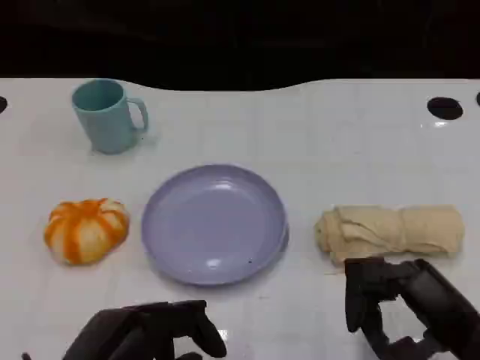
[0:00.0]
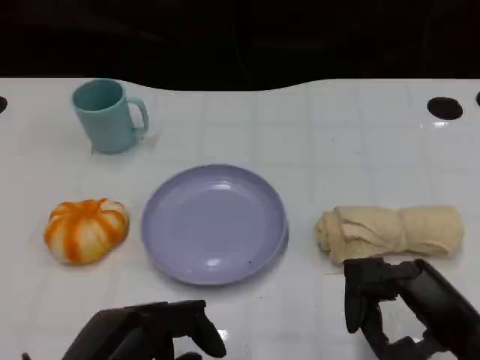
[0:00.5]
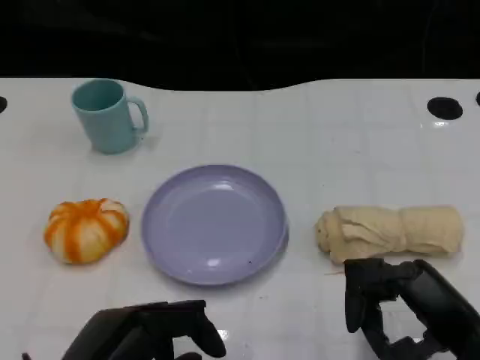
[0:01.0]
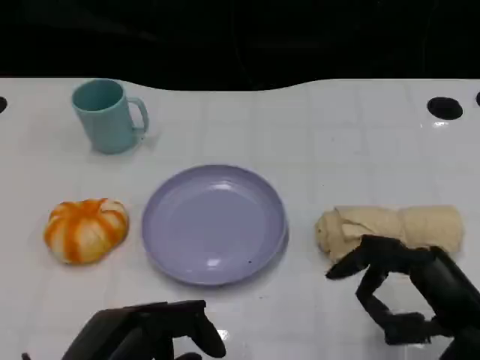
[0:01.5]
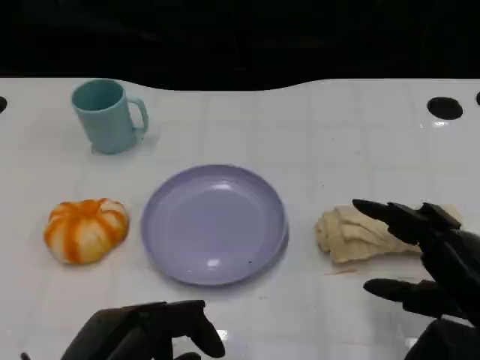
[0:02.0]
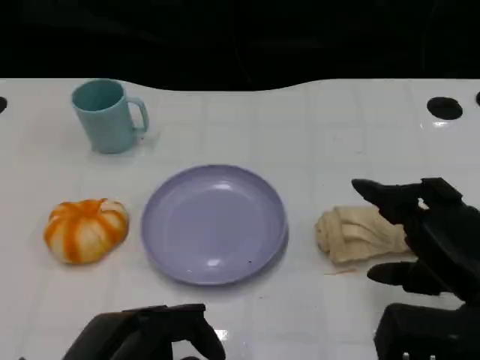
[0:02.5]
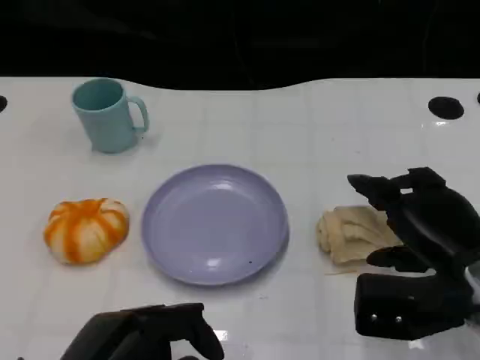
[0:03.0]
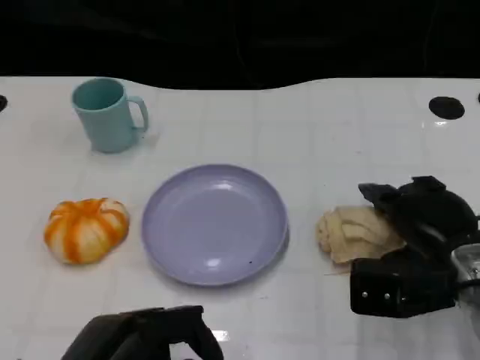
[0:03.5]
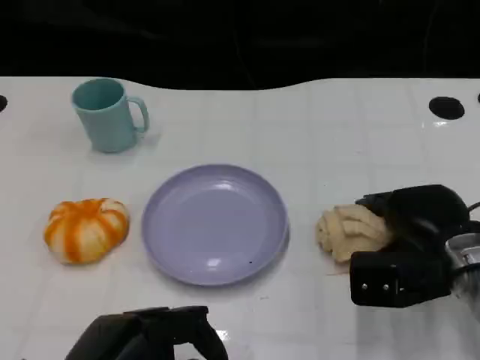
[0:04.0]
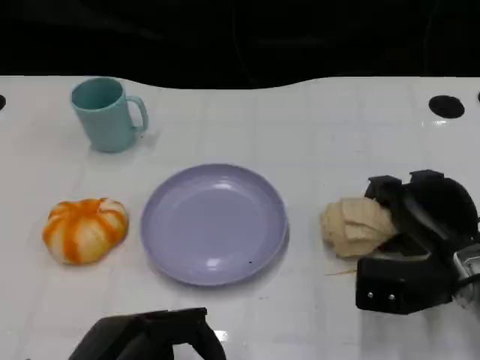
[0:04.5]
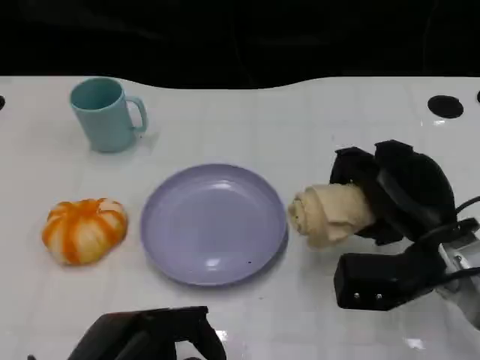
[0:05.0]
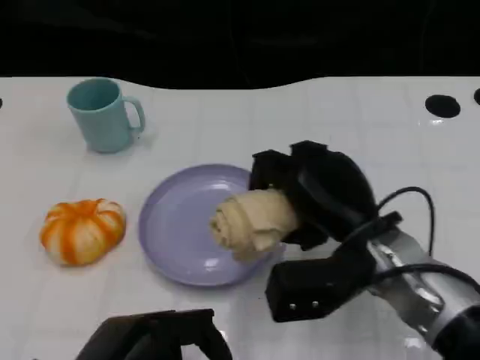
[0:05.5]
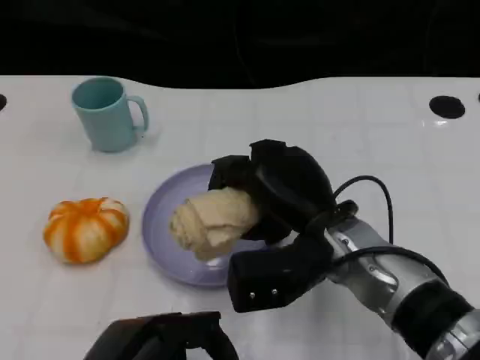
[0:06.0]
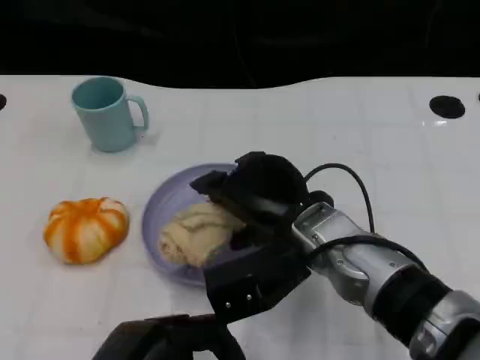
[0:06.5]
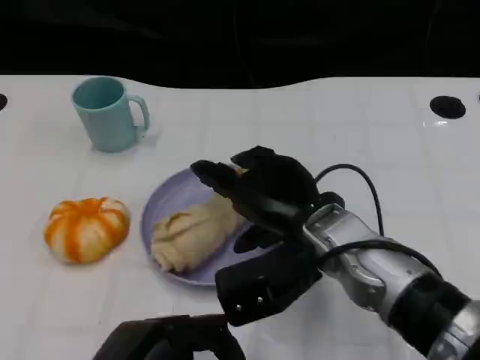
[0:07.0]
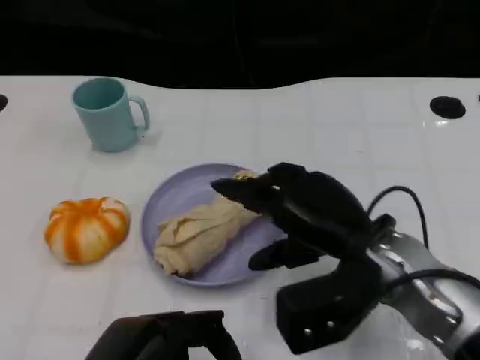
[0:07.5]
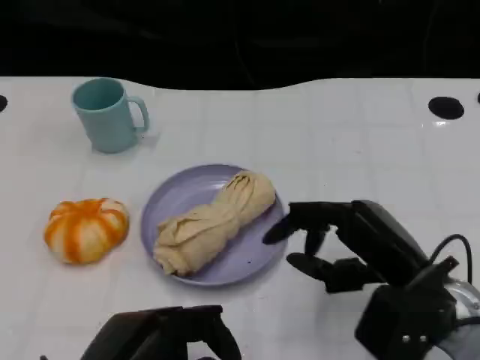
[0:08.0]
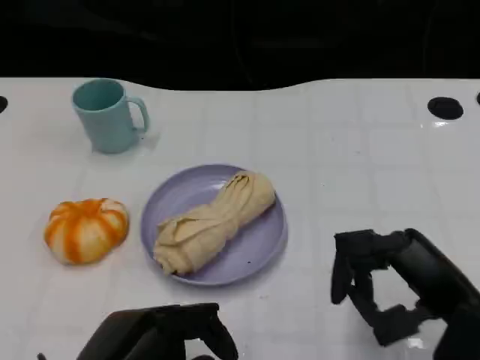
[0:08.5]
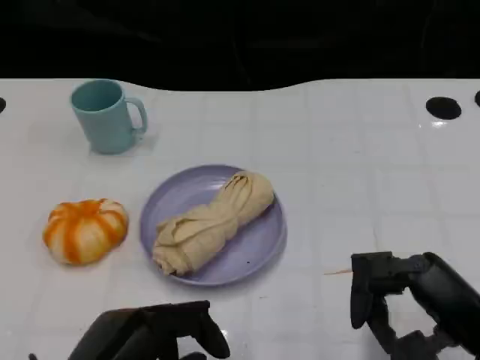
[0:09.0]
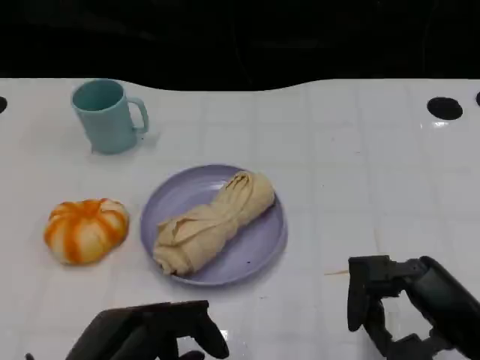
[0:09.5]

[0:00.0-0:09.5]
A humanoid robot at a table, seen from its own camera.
Task of the whole recording: Grasp the towel on the left side of the plate with the left hand and place it into the plate.
0:02.0 to 0:04.0: The right hand heads forward, covering some 10 cm.
0:04.0 to 0:05.5: The right hand goes roughly 10 cm to the left.
0:07.5 to 0:09.5: The right hand shifts approximately 15 cm to the right and backward.

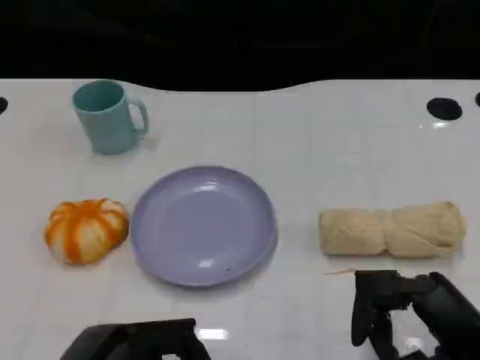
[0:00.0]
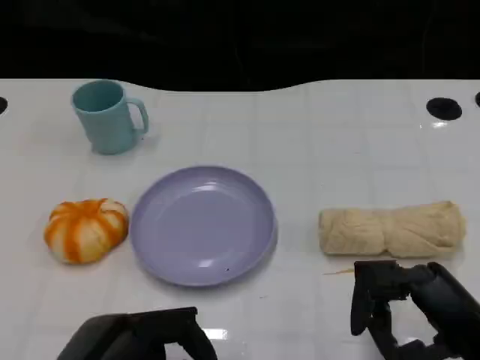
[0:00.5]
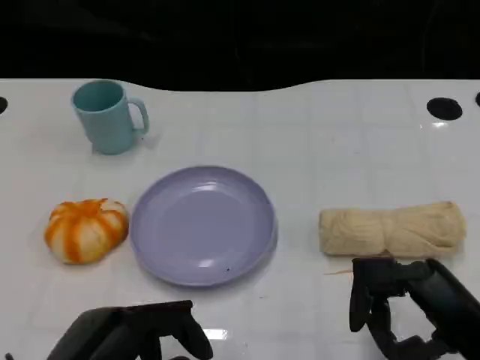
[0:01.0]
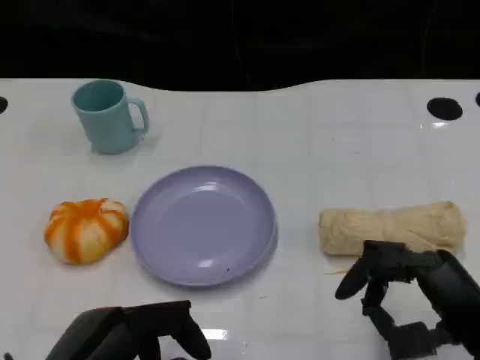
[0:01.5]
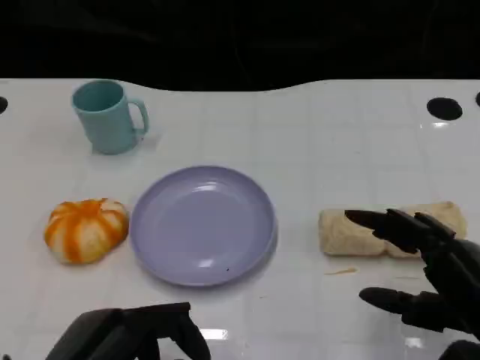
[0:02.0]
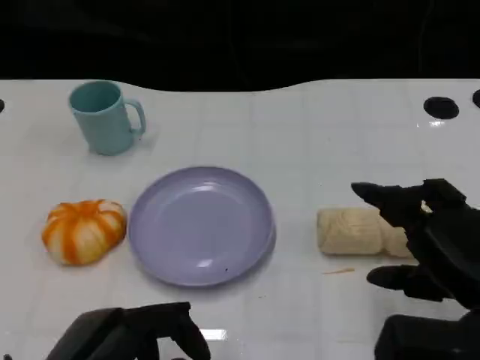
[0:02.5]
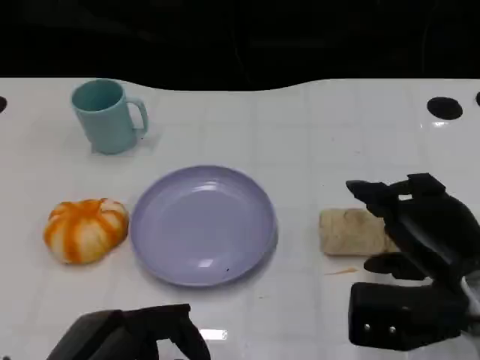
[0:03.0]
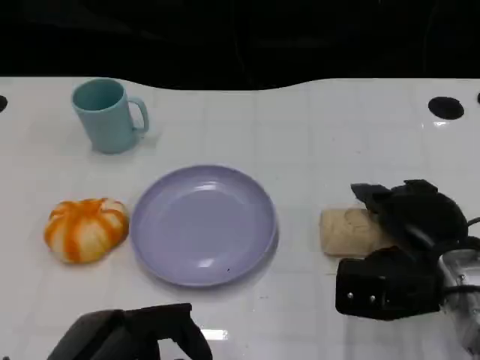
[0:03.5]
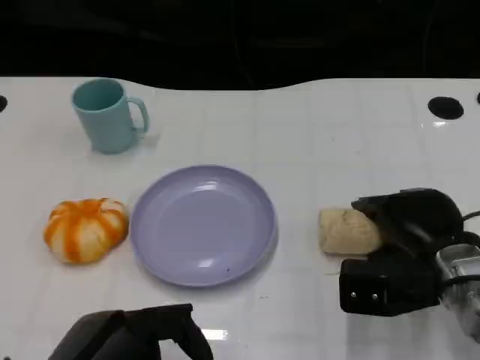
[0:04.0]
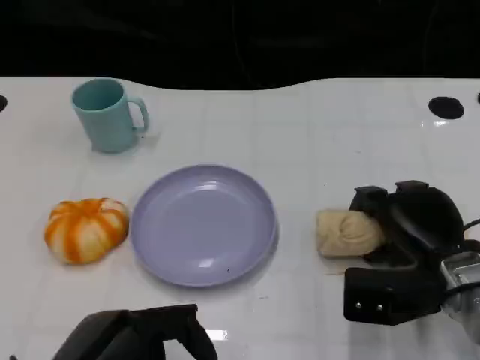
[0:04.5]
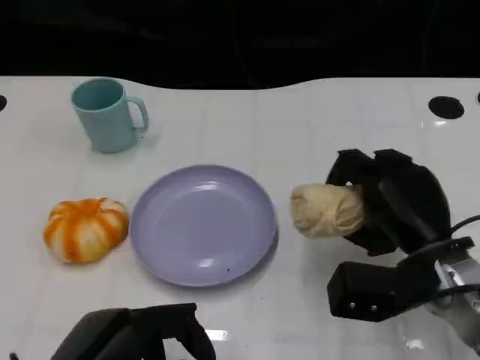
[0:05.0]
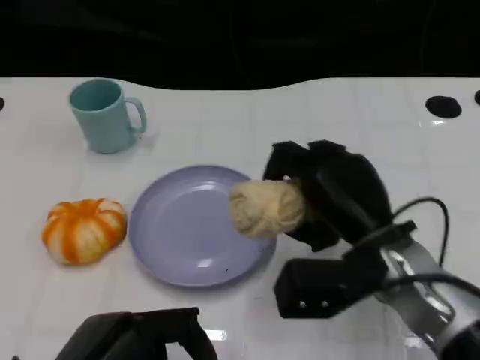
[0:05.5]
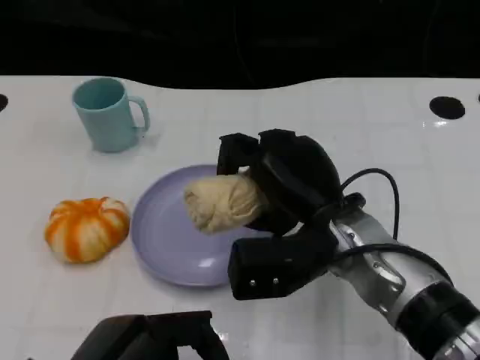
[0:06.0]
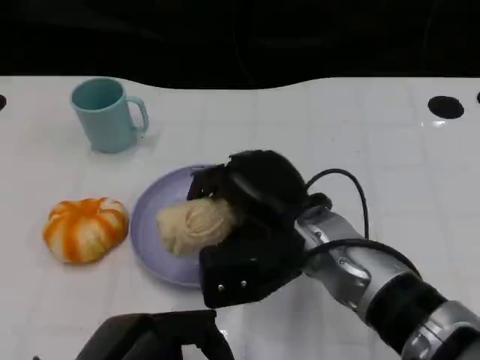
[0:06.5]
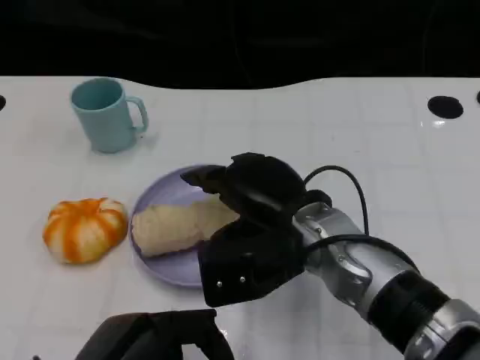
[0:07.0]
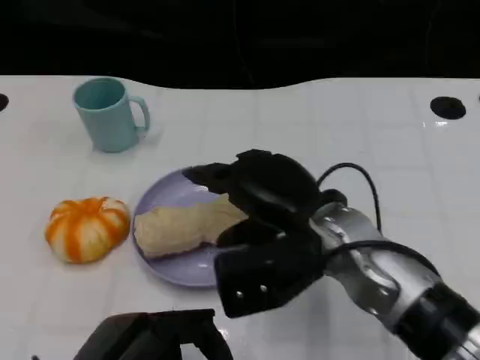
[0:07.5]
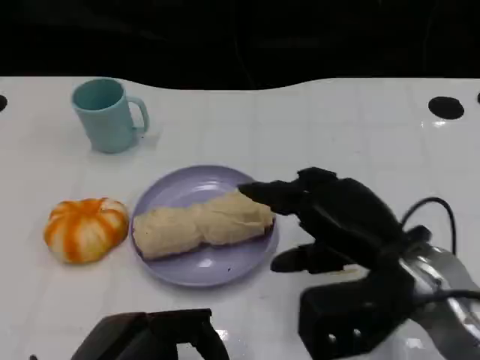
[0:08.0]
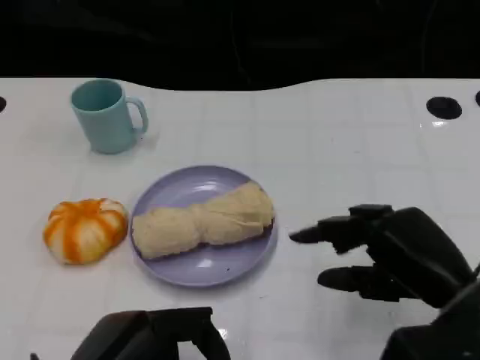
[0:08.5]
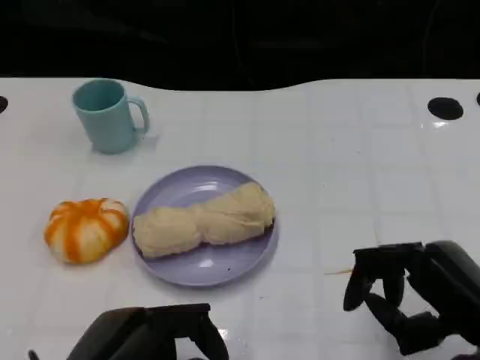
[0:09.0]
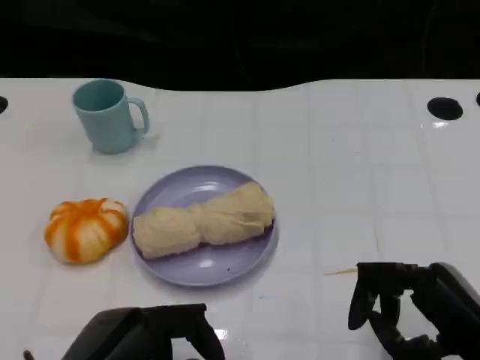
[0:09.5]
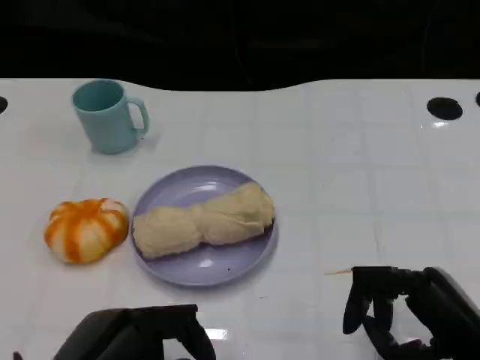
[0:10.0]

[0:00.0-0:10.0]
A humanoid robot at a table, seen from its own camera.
Task of the whole recording: Grasp the towel on the left side of the plate with the left hand and place it into the plate.
0:02.0 to 0:04.0: The right hand moves forward, some 10 cm.
0:04.0 to 0:06.0: The right hand heads to the left and upward, covering about 15 cm.
0:06.0 to 0:08.0: The right hand heads to the right, covering some 10 cm.
0:08.0 to 0:10.0: The right hand heads backward and to the right, covering approximately 10 cm.

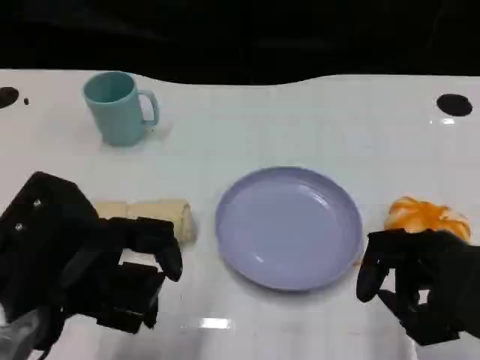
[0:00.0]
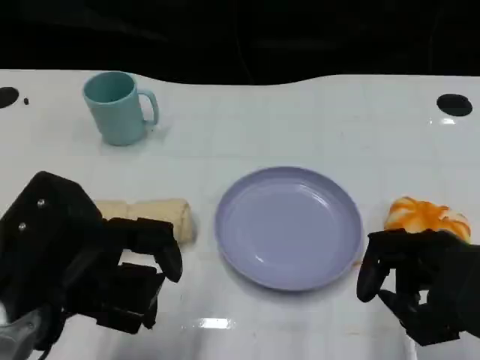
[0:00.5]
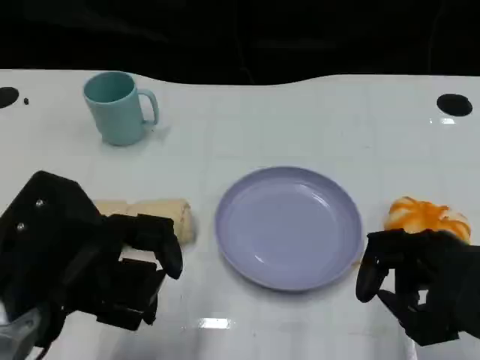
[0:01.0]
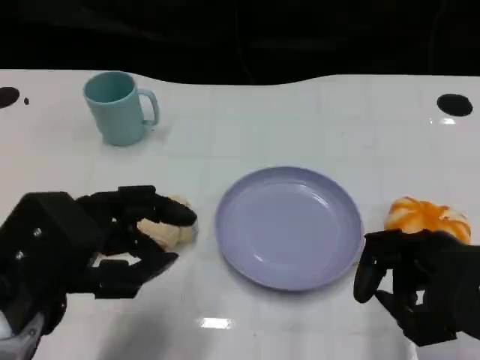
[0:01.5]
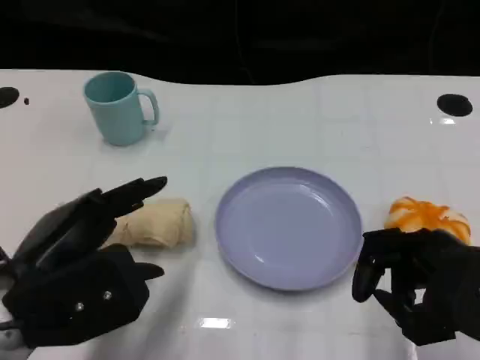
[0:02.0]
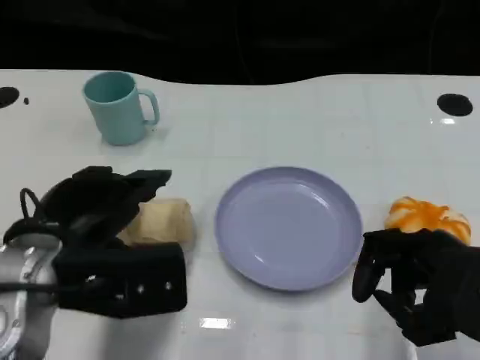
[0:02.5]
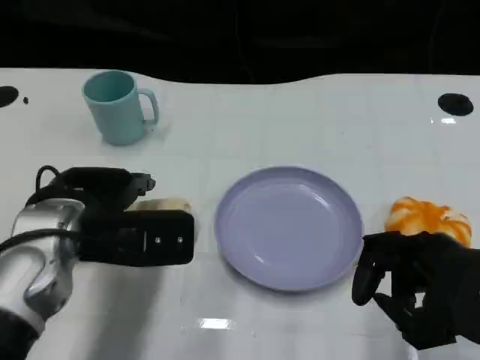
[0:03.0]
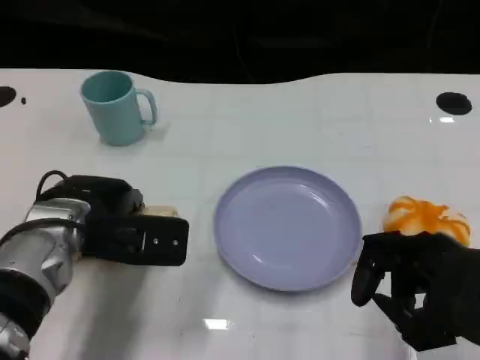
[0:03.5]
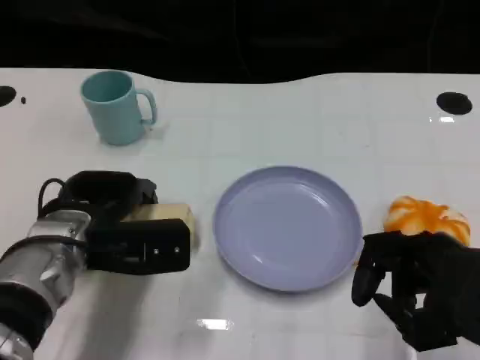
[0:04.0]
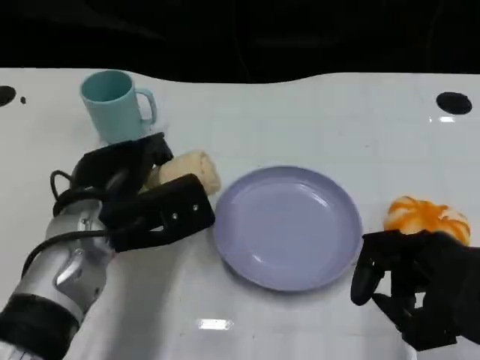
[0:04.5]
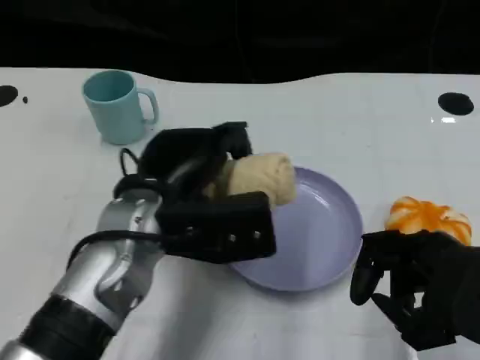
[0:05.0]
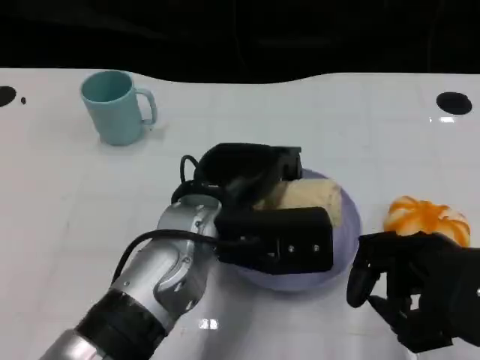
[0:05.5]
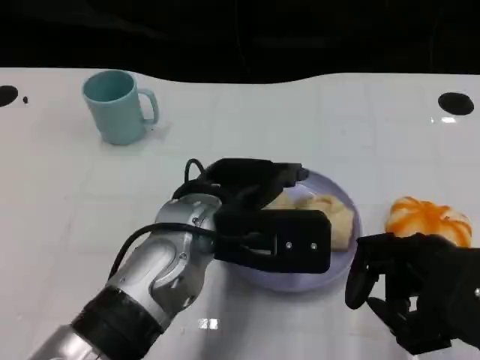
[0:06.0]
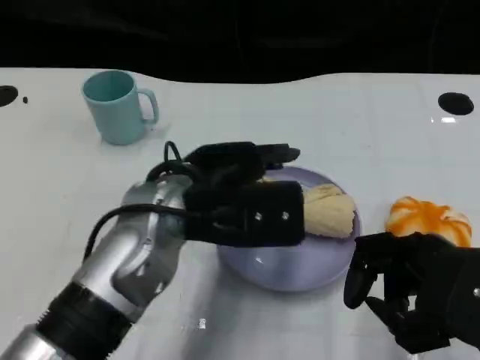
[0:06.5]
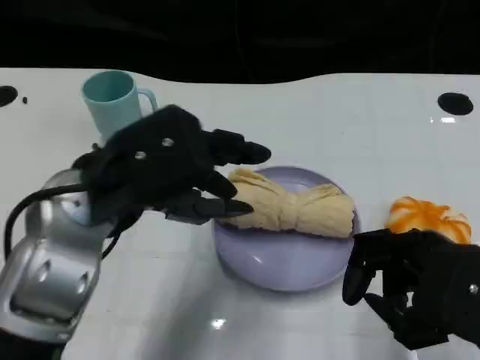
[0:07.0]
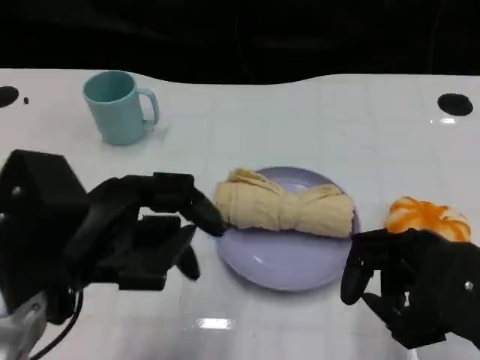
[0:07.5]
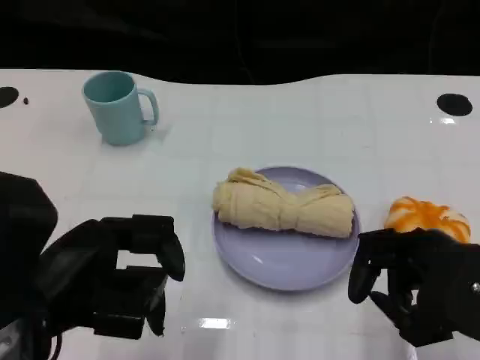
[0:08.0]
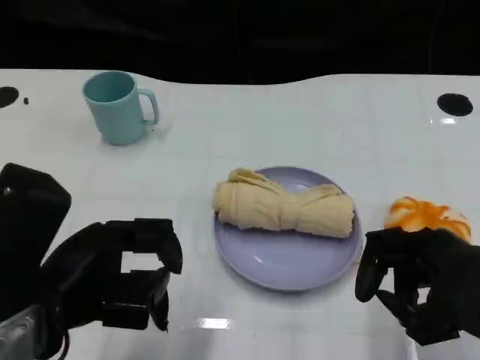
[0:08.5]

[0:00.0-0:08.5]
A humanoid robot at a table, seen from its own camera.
Task of the whole recording: Grasp the towel on the left side of the plate with the left hand and place it into the plate.
0:02.0 to 0:04.0: The left hand moves forward and downward, some 10 cm.
0:04.0 to 0:06.5: The left hand goes approximately 15 cm to the right and upward.
0:06.5 to 0:08.5: The left hand shifts some 15 cm to the left and backward.
